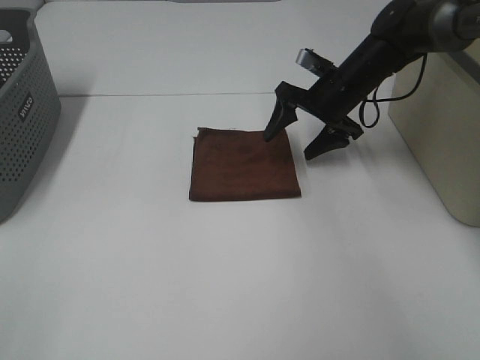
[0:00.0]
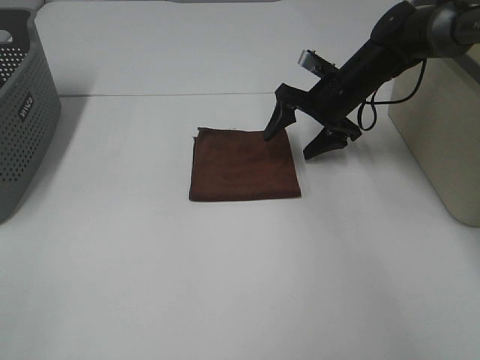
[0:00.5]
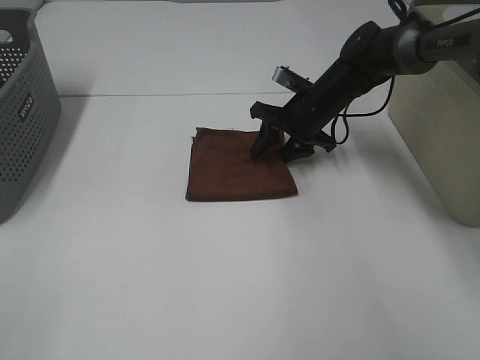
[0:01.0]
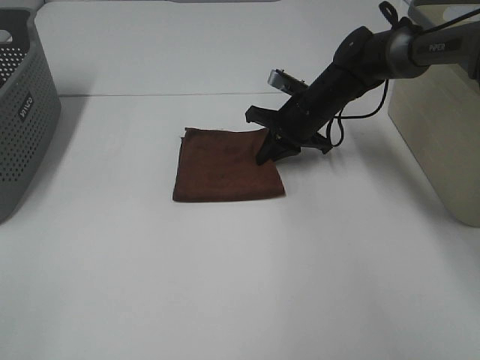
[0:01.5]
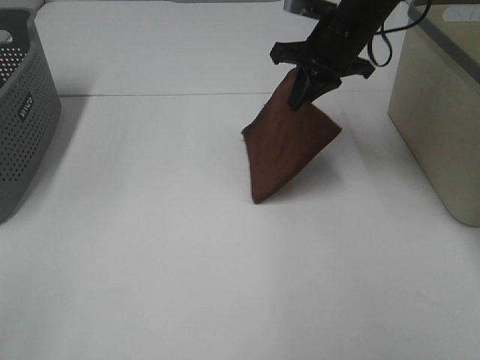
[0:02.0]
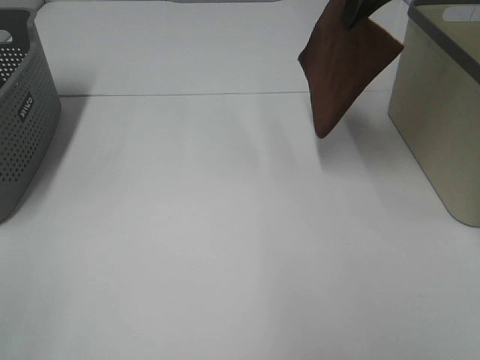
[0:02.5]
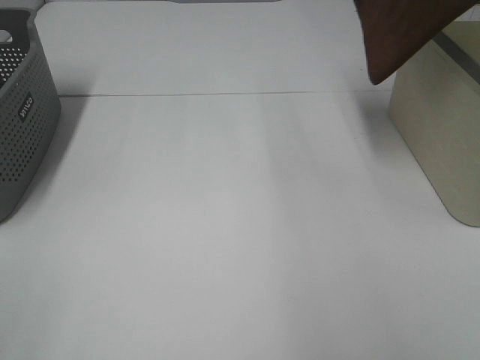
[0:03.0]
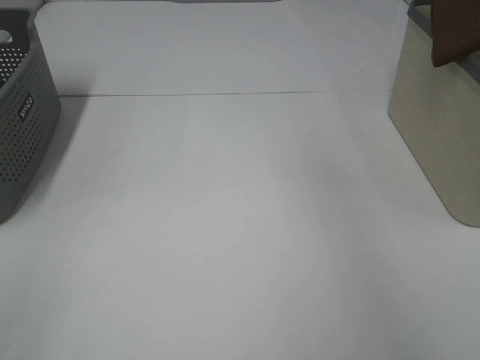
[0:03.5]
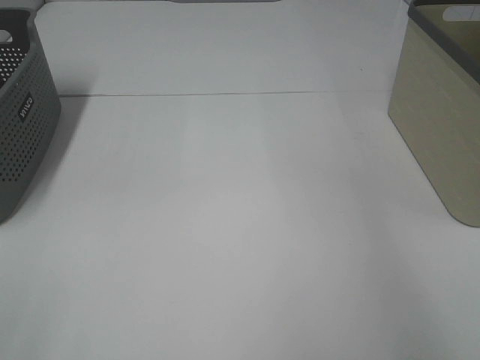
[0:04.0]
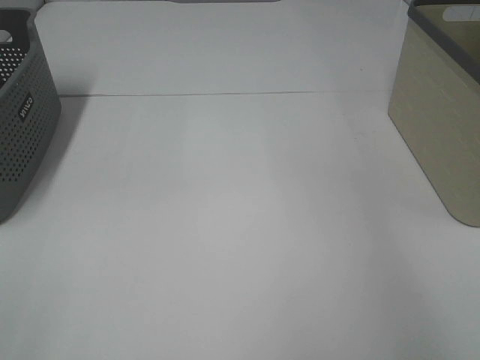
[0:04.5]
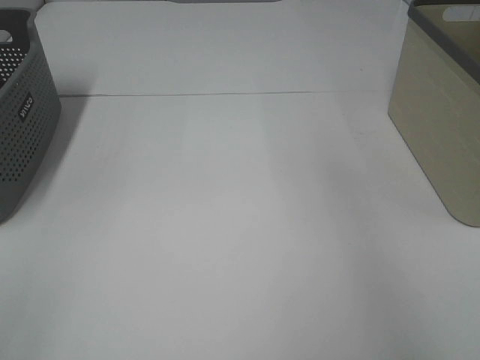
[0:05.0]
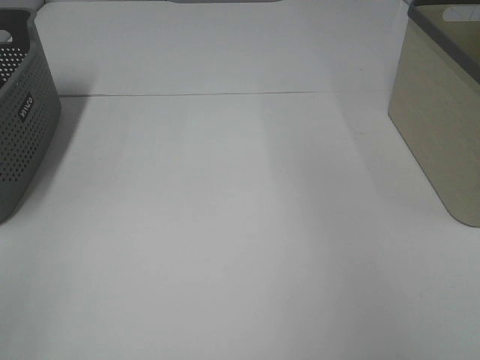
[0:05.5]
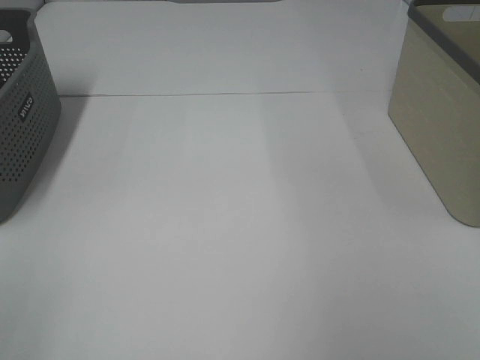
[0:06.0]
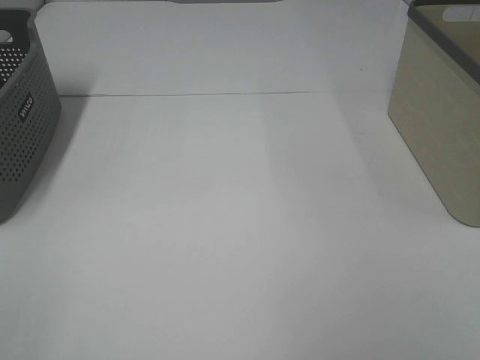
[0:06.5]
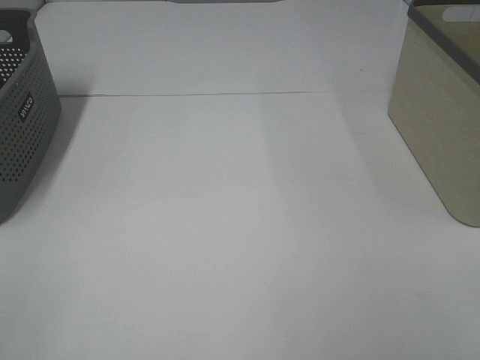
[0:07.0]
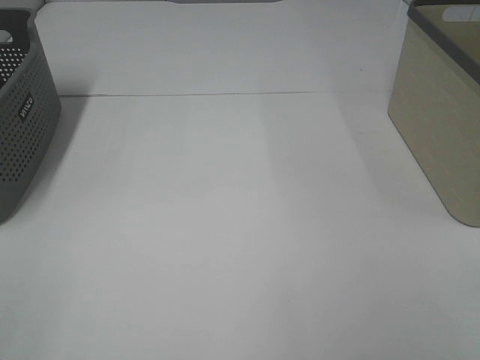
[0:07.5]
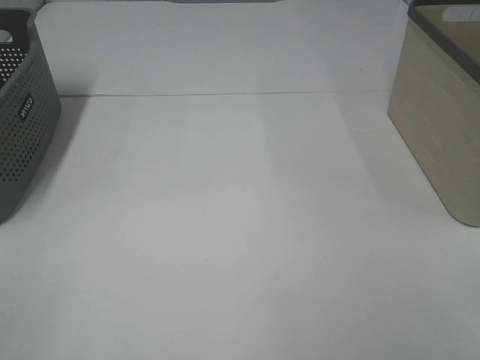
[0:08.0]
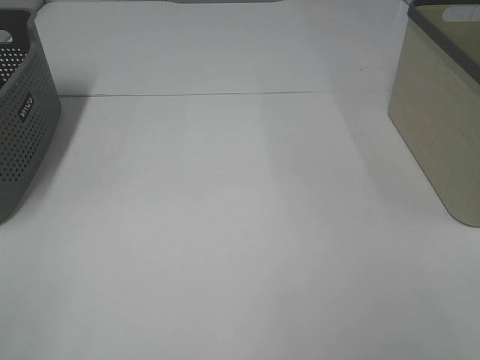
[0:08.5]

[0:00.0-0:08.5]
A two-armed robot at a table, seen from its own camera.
Step, 0:01.5 to 0:04.5: Right hand: place the brown towel in right basket.
0:00.0 to 0:02.0: The right gripper moves upward, approximately 10 cm, and closes.
0:02.0 to 0:04.0: The right gripper shifts some 25 cm to the right.
